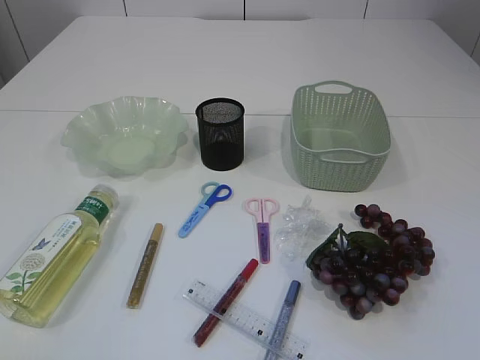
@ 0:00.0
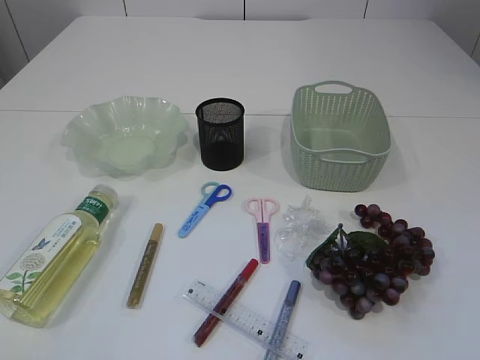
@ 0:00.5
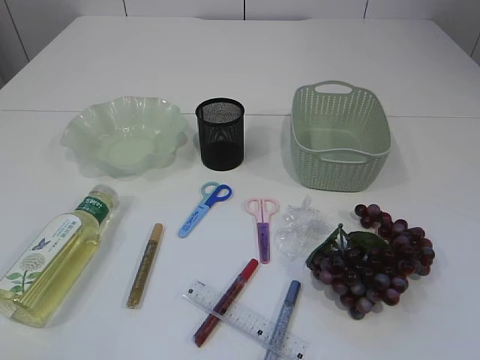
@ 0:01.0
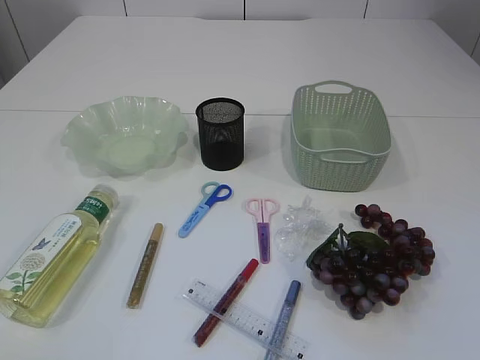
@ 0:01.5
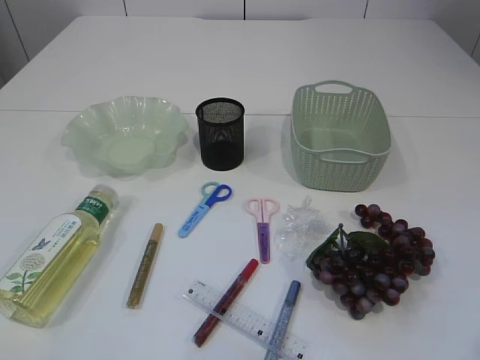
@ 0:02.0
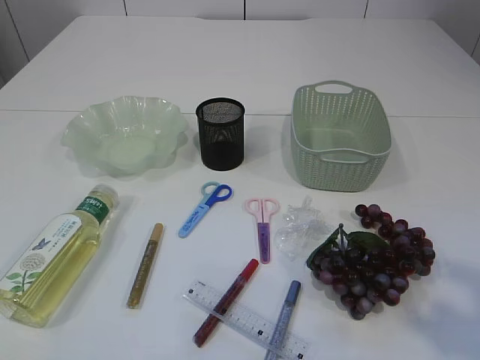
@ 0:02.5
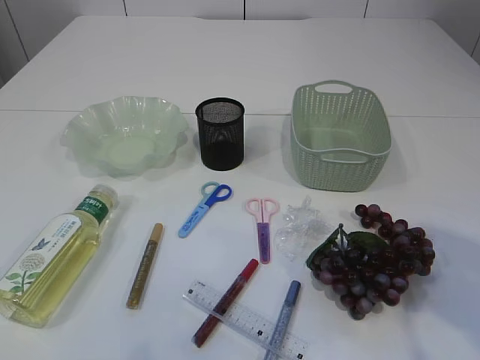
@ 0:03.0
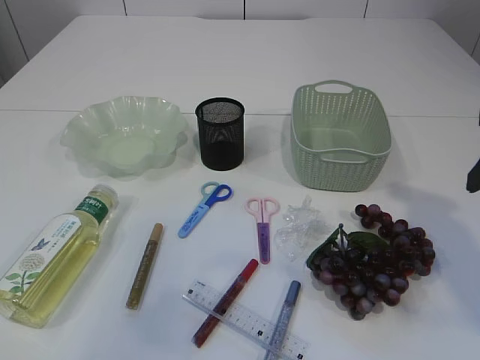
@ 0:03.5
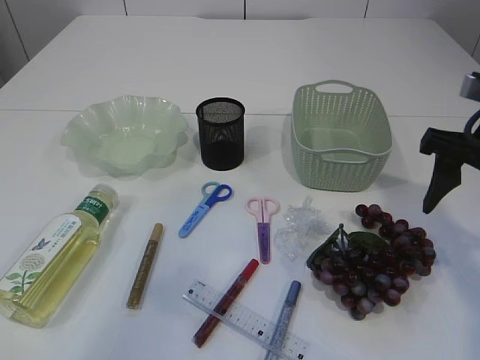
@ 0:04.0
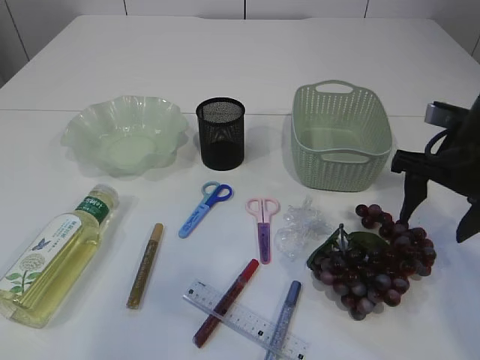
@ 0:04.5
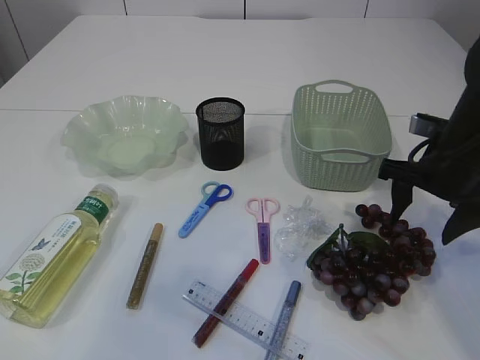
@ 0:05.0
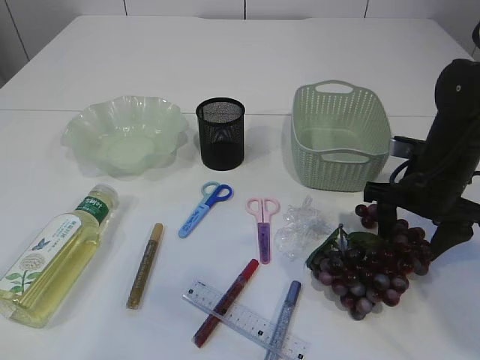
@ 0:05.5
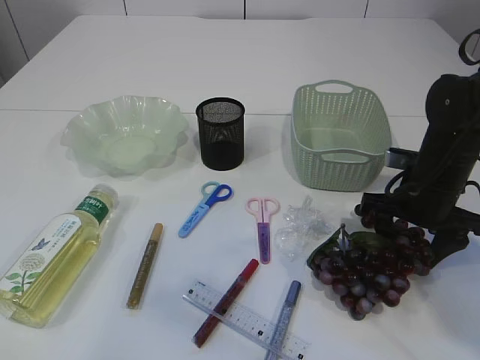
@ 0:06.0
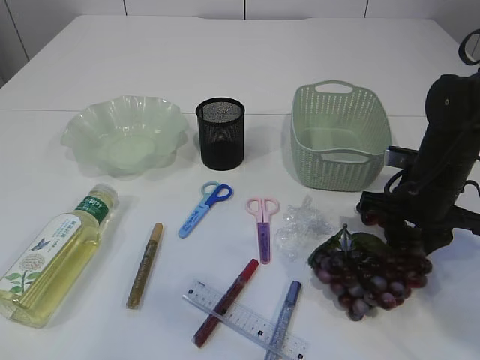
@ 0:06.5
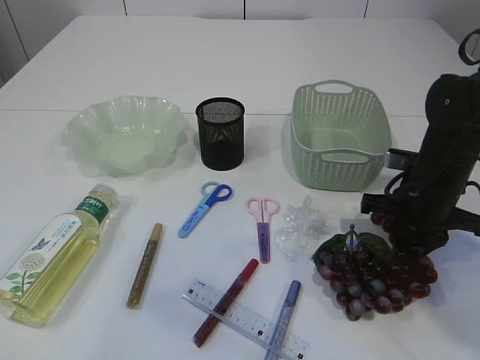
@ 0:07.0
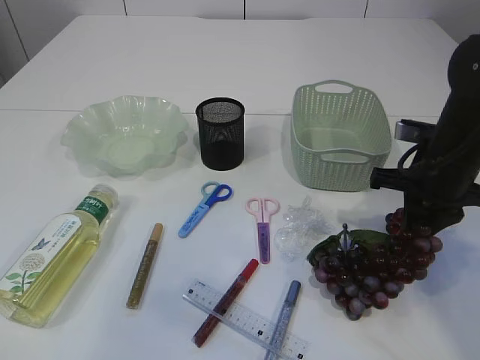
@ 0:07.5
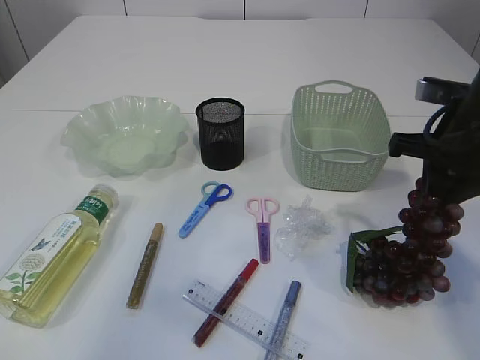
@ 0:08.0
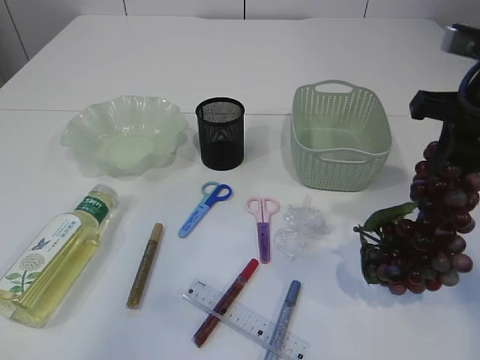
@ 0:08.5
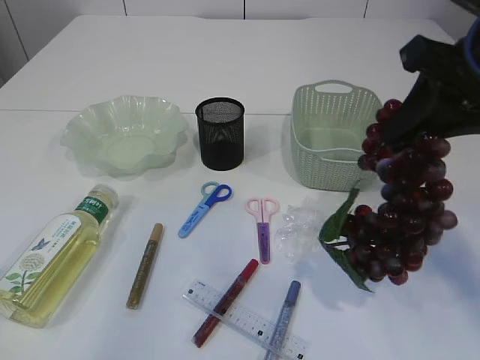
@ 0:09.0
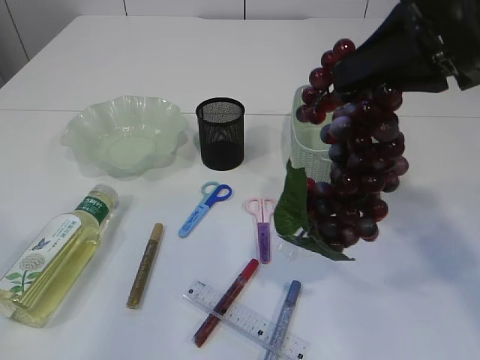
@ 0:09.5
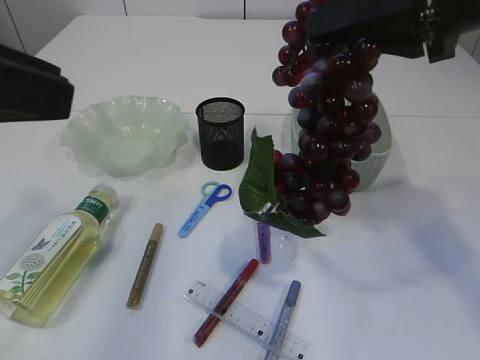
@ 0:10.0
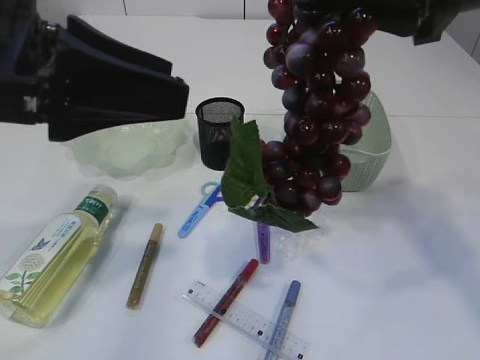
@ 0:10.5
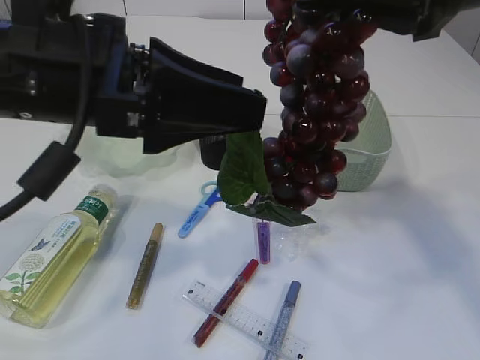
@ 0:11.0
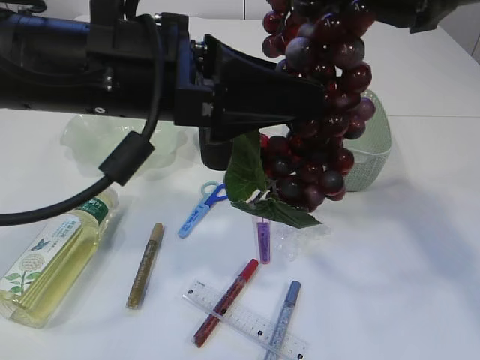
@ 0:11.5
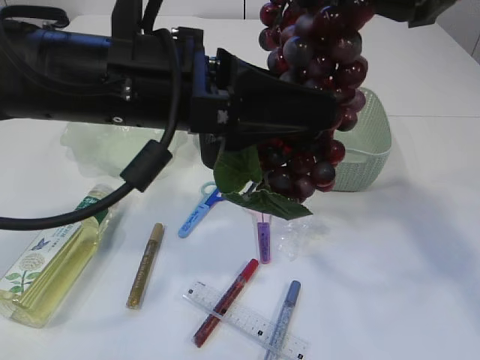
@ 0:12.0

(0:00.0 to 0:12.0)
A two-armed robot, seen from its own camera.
Step, 0:00.0 - 0:08.5: Pick up the grapes.
0:02.0 - 0:04.0: The left gripper shifts approximately 15 cm forward and upward, while the right gripper travels forward by roughly 30 cm.
0:04.0 - 0:06.0: The right gripper shifts approximately 15 cm downward and forward.
0:06.0 - 0:08.0: The right gripper shifts approximately 10 cm upward, and closes.
0:08.0 - 0:10.0: The right gripper is displaced upward and to the left by roughly 15 cm, while the left gripper is displaced forward and to the right by about 10 cm.
0:10.0 - 0:12.0: The left gripper heads to the right, downward and forward, covering about 15 cm.

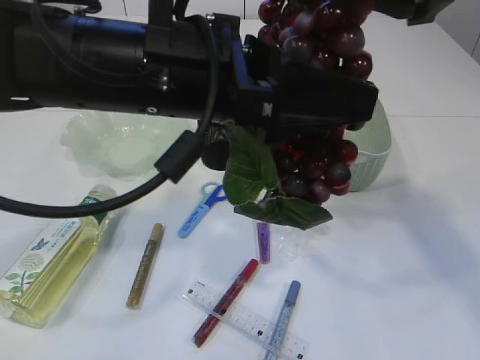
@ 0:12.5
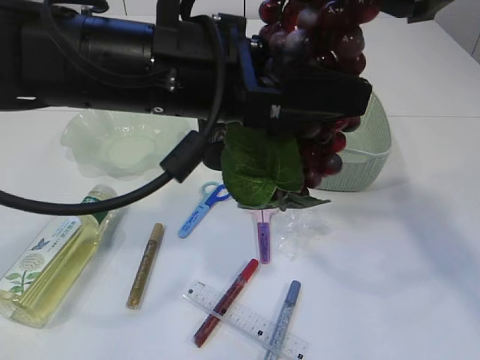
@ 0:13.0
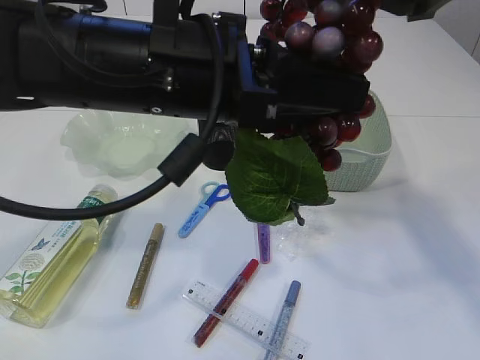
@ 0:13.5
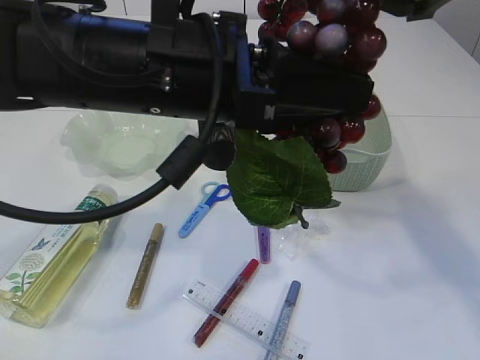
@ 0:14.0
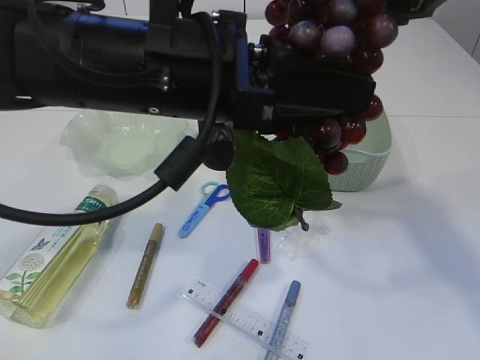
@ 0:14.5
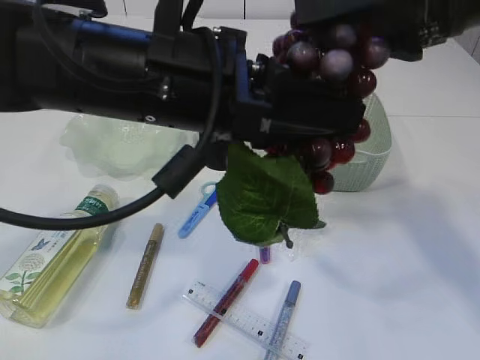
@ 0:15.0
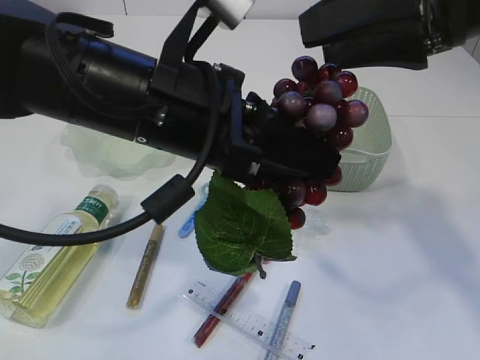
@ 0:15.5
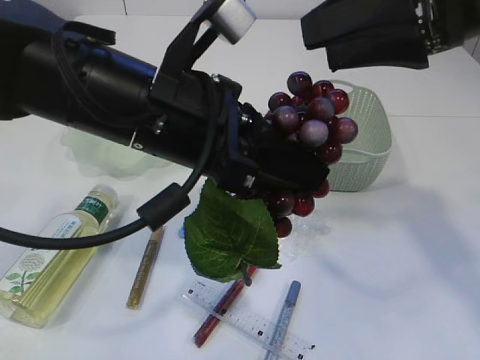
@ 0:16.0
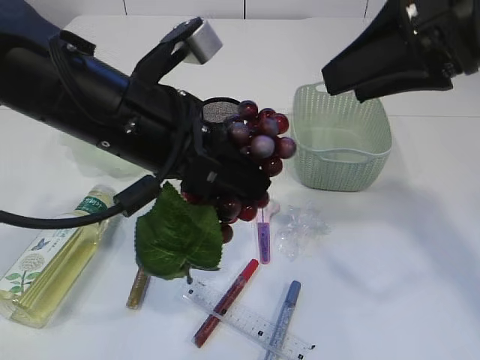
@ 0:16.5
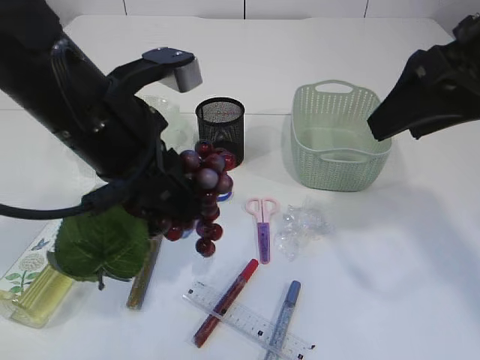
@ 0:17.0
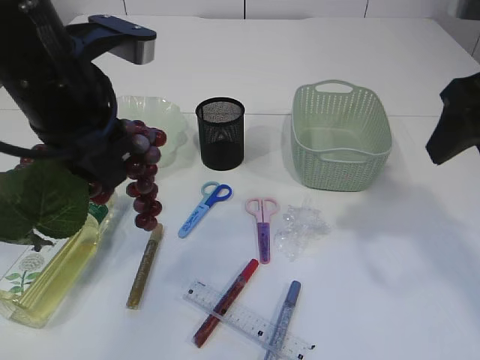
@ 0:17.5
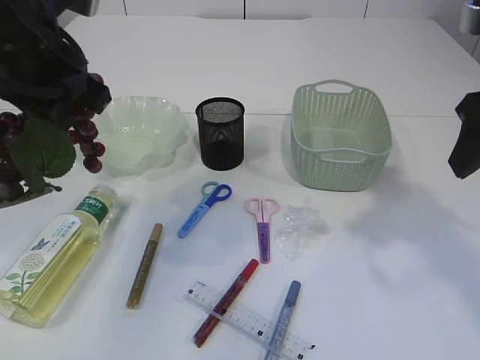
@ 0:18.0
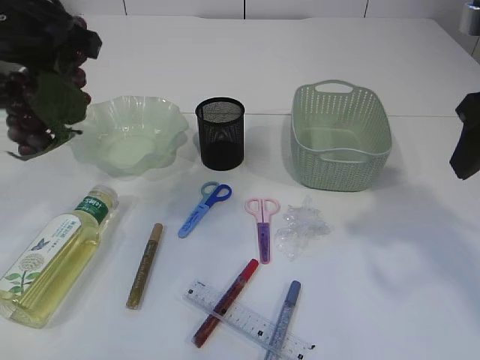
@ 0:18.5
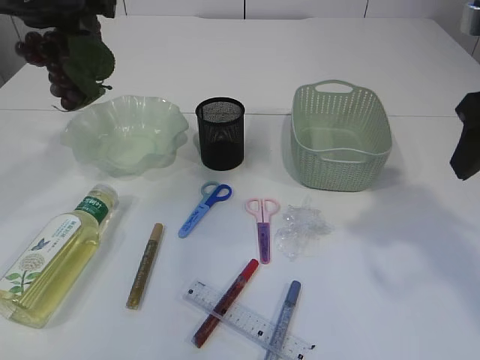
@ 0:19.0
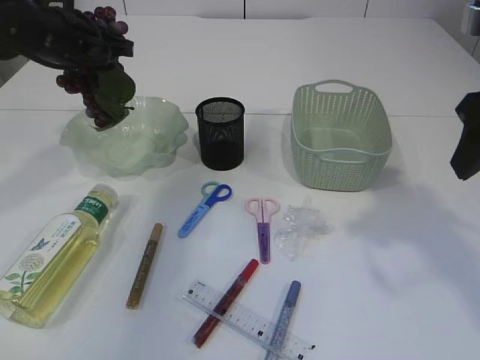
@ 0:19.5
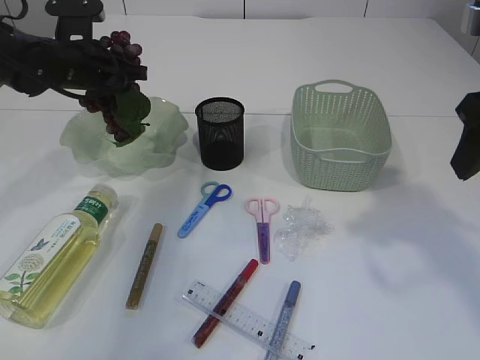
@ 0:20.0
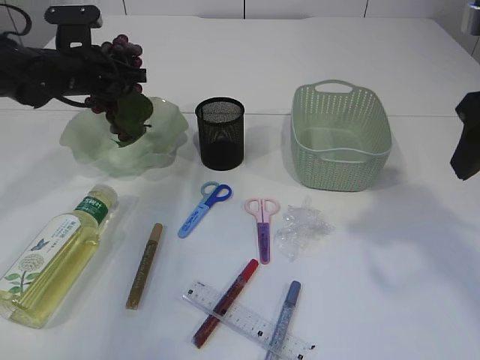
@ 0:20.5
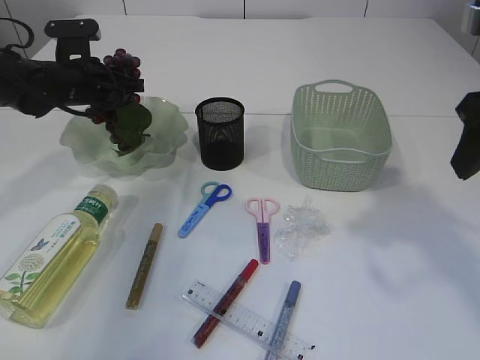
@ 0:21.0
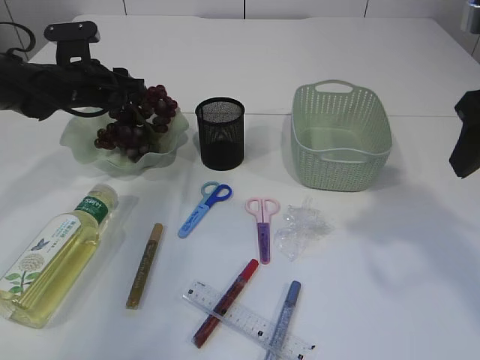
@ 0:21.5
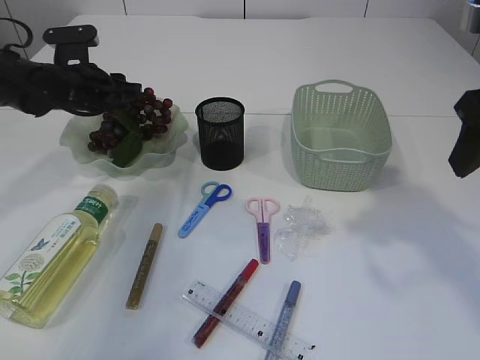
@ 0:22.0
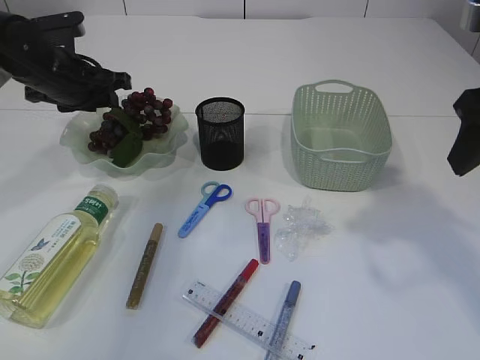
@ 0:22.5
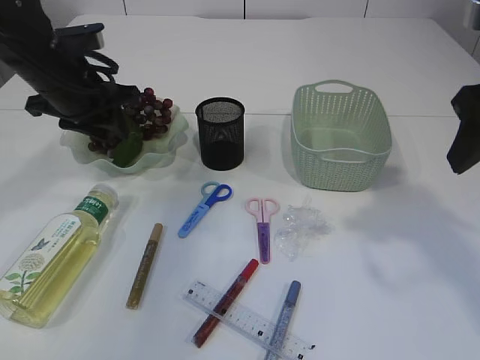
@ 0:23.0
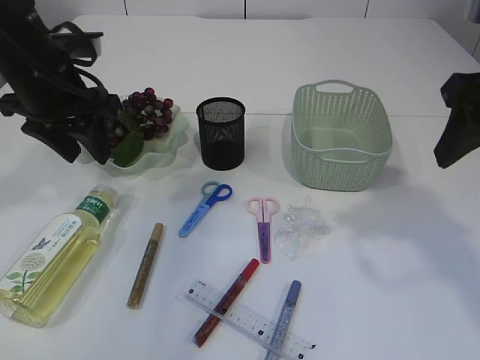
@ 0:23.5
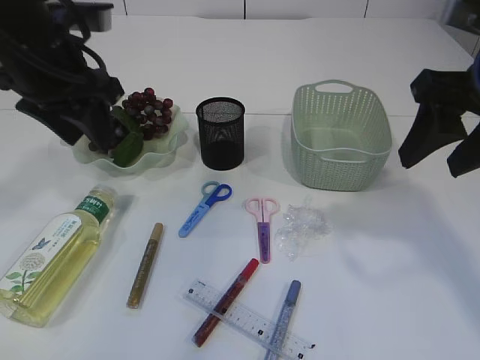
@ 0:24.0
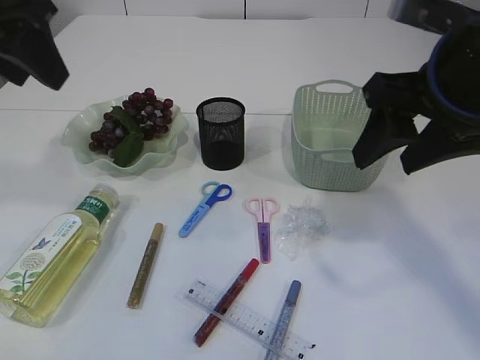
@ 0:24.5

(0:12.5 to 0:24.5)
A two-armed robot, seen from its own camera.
Step, 0:12.5 - 0:16.5: Hand over the grapes.
Step, 0:17.0 - 0:22.5: Place the grapes in the plate.
0:12.5 - 0:14.5: The right gripper opens, while the left gripper closes up.
0:14.5 - 0:16.5: The left gripper shifts by some 5 cm.
0:16.5 - 0:18.5: The left gripper travels to the left, forward and upward by some 15 cm; the right gripper heads to the right, covering roughly 5 cm.
0:18.5 - 0:20.5: The left gripper is displaced forward and downward by roughly 20 cm.
0:22.5 - 0:24.5: The right gripper heads to the left, covering about 5 cm. Meanwhile the left gripper heads upward and backward, covering roughly 25 cm.

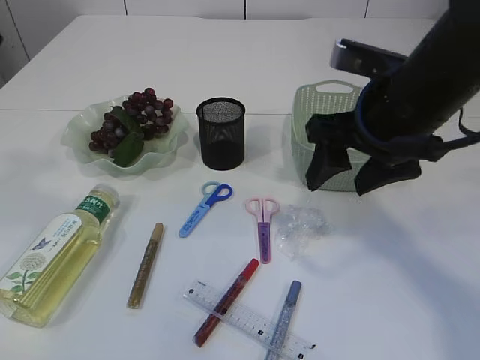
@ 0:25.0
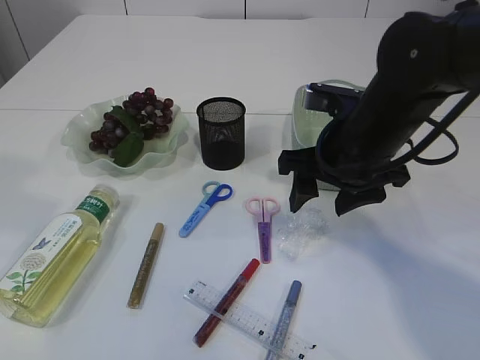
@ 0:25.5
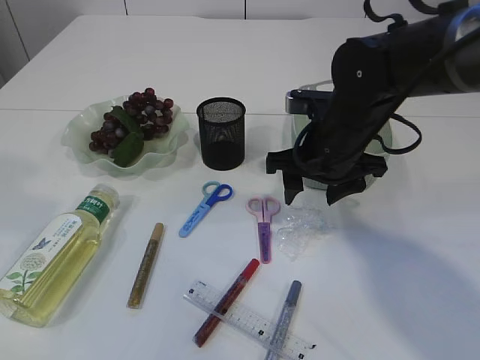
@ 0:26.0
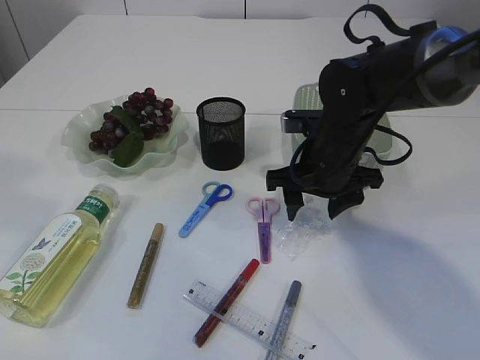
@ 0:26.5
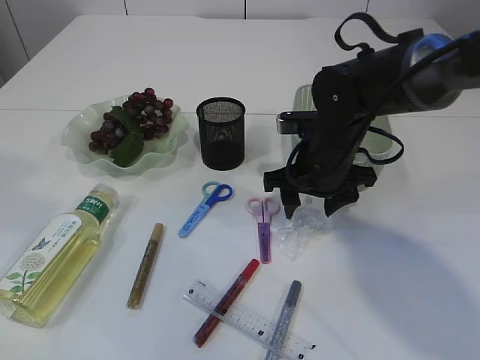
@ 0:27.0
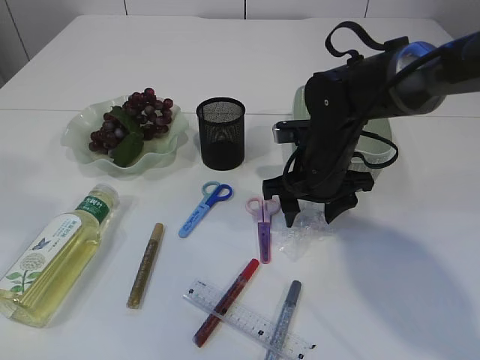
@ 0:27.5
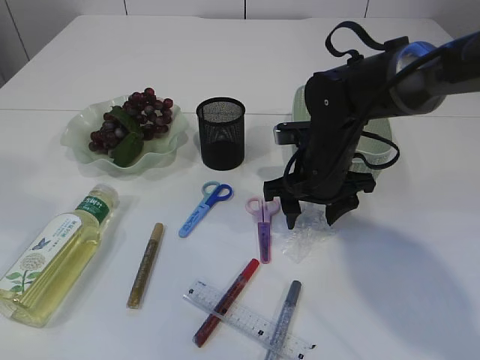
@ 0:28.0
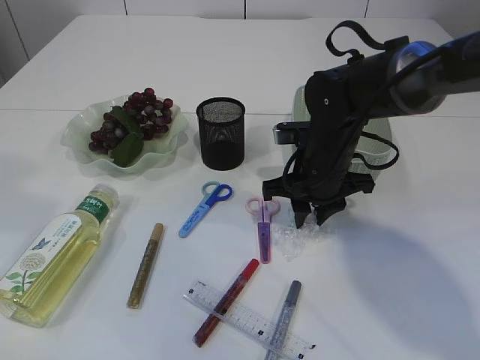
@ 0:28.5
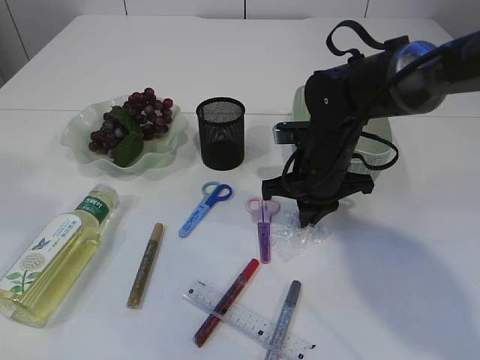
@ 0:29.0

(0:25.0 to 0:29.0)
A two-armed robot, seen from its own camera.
0:25.0 - 0:27.0: The right gripper heads downward and forward, covering about 15 cm.
0:27.0 - 0:29.0: The right gripper closes its fingers.
